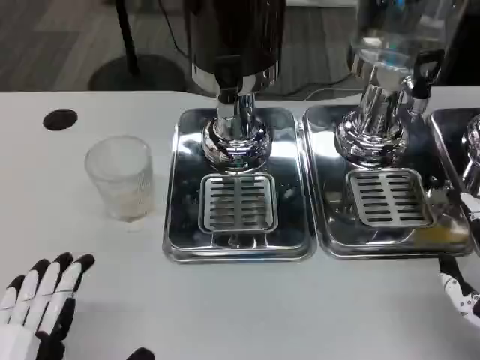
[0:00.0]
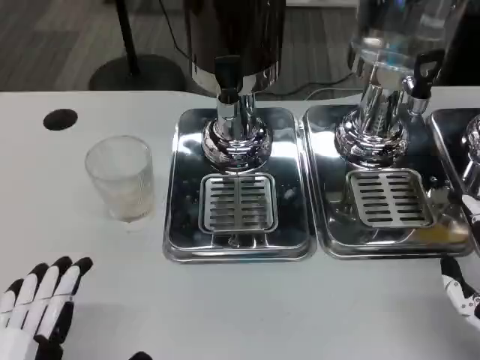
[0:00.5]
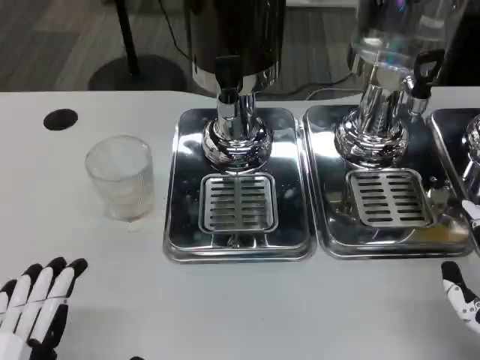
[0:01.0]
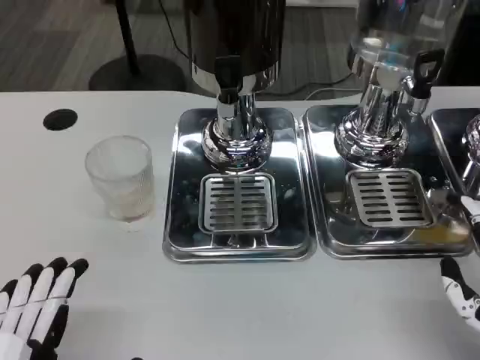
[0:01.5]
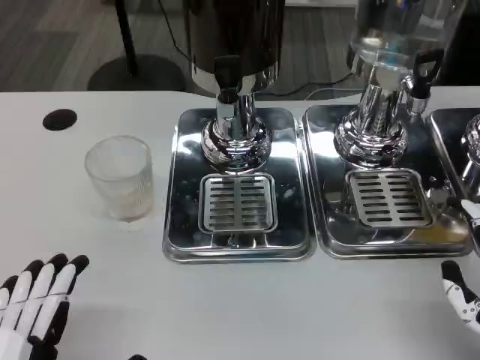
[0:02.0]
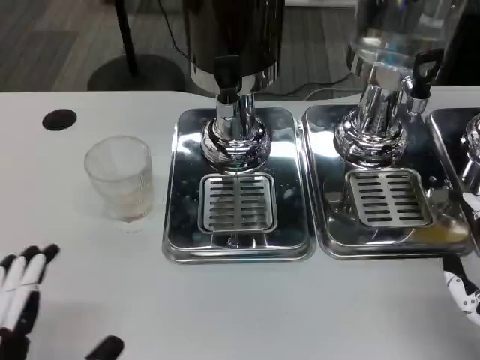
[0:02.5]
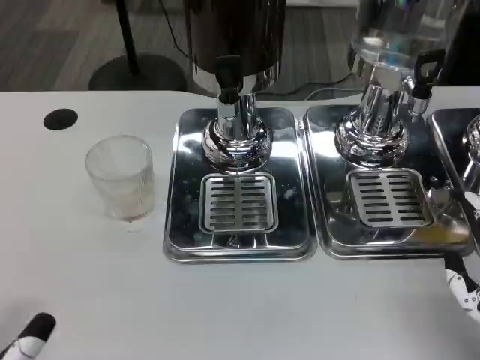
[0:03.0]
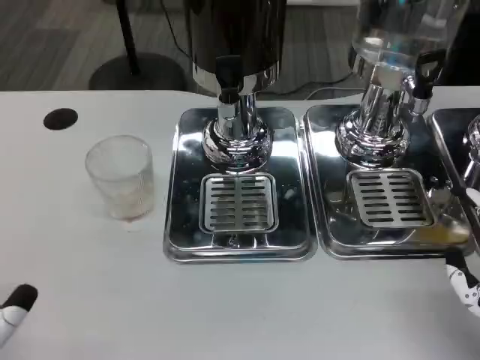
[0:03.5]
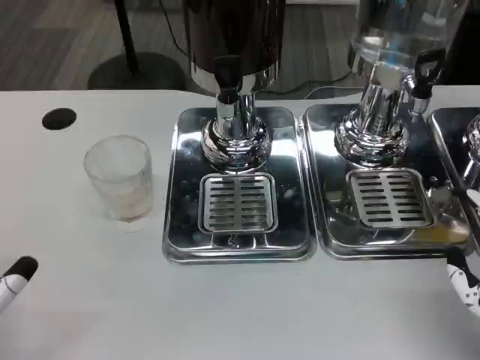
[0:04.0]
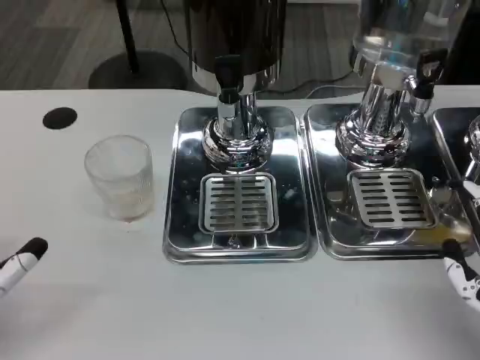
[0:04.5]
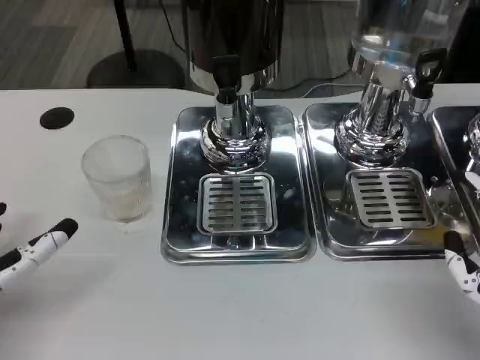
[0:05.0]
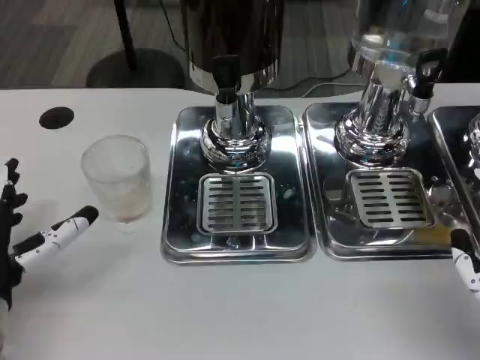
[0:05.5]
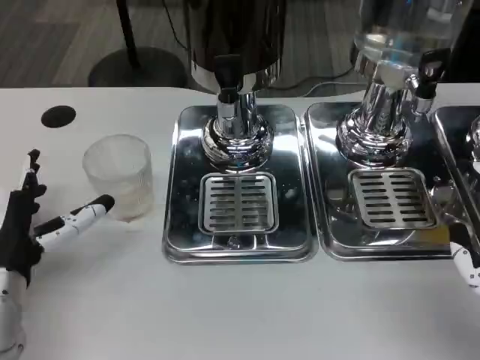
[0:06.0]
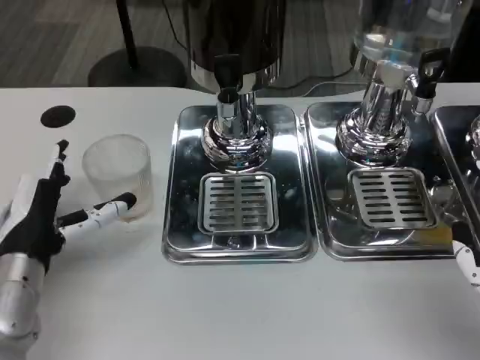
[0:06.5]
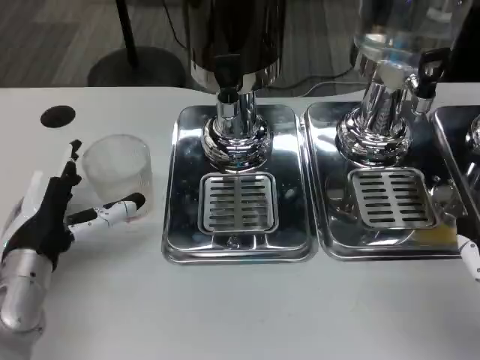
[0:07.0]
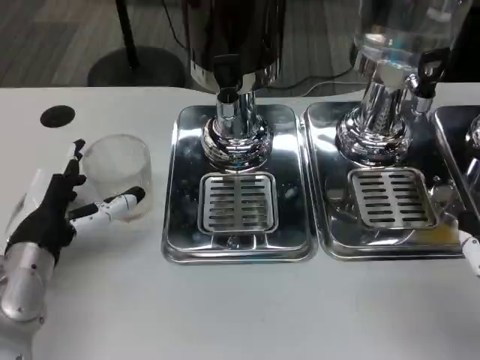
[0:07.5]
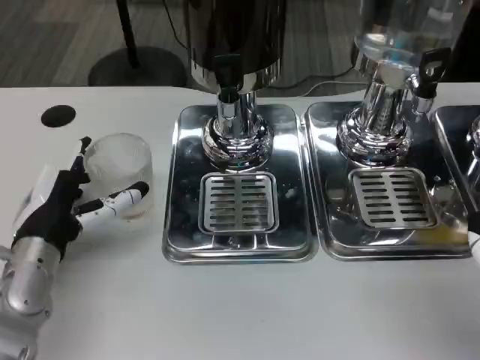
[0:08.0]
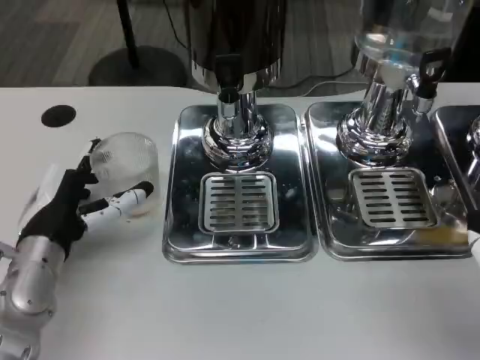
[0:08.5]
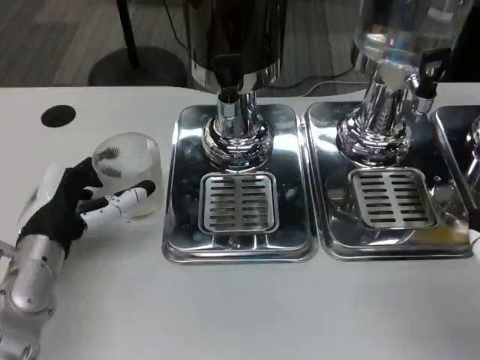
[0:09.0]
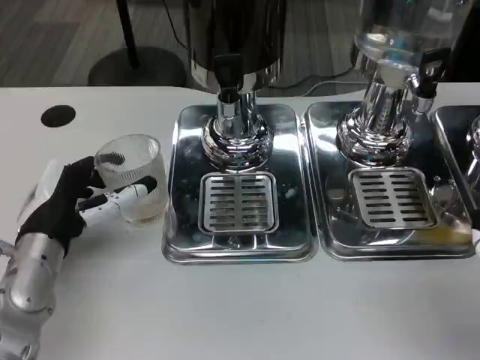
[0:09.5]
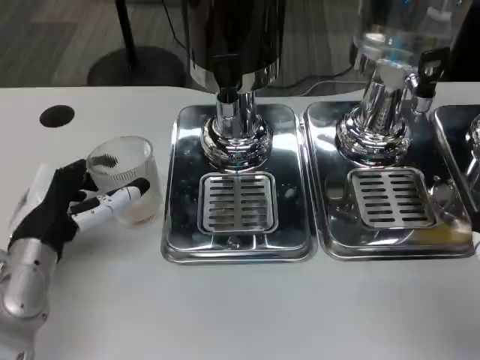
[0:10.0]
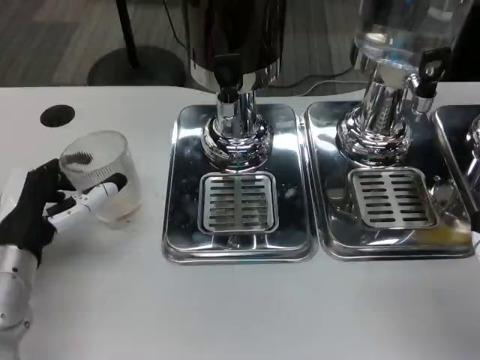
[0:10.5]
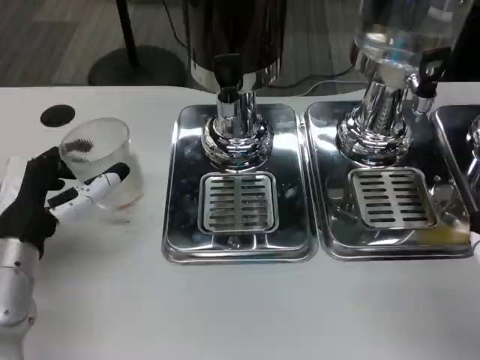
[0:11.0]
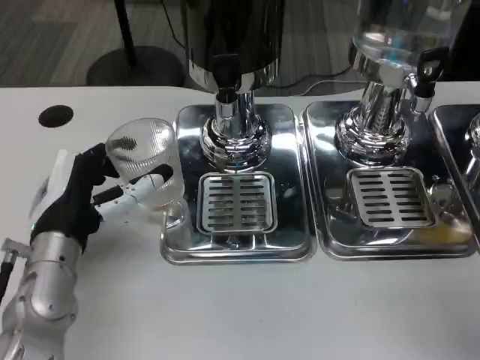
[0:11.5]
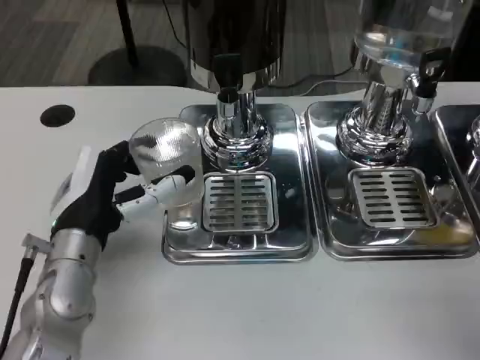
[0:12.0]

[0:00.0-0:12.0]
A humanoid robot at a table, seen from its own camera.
Task of the whole recording: Grasp the cup under the faucet to collect the drink, then remove the cup.
0:00.0 to 0:02.0: Both hands stay put.
0:02.0 to 0:04.0: The left hand moves forward and to the left, about 10 cm.
0:04.0 to 0:06.0: The left hand shifts some 10 cm forward.
0:06.0 to 0:08.0: There are only small adjustments of the hands.
0:08.0 to 0:10.0: Both hands stay about where they are.
0:10.0 to 0:12.0: The left hand travels to the right by approximately 5 cm.

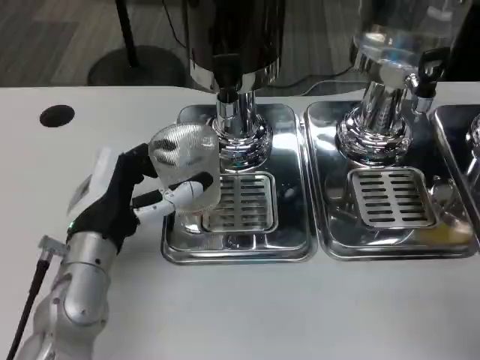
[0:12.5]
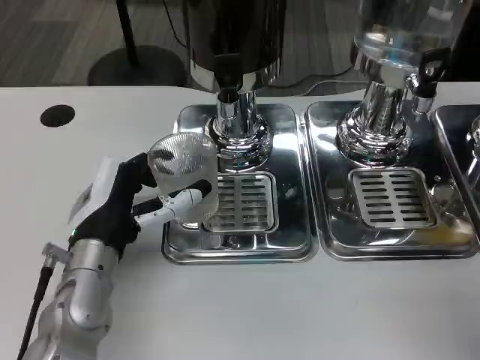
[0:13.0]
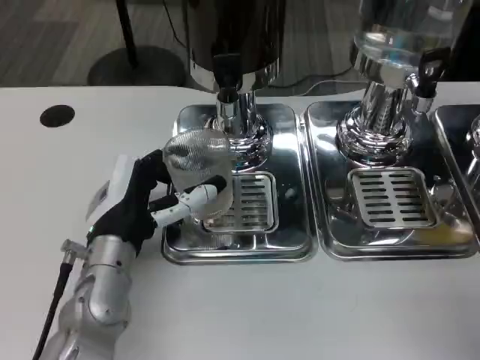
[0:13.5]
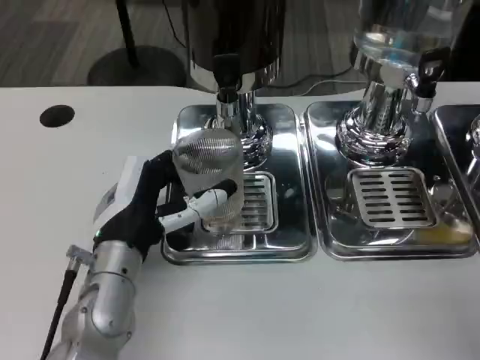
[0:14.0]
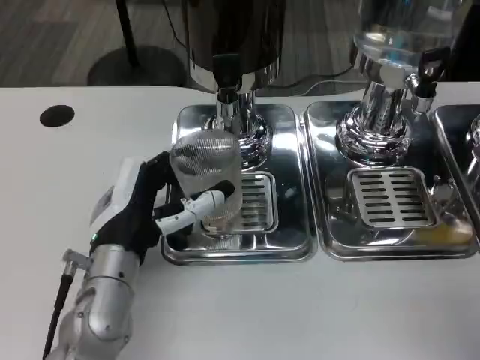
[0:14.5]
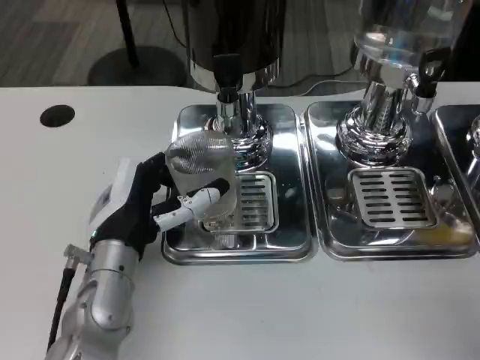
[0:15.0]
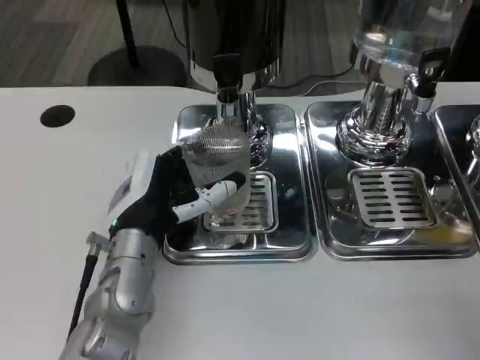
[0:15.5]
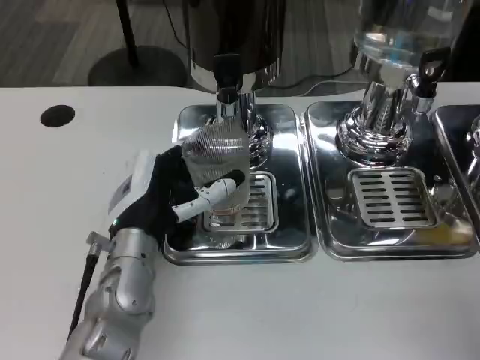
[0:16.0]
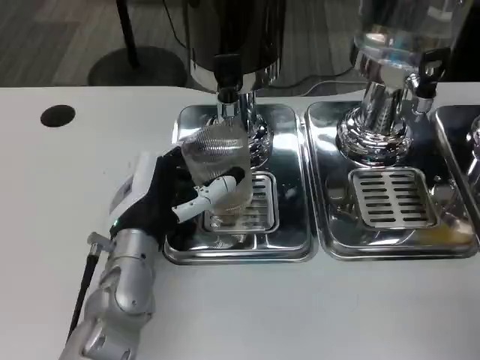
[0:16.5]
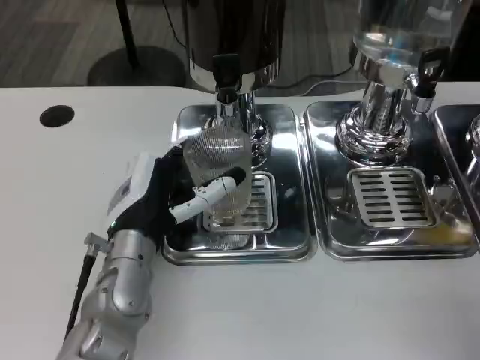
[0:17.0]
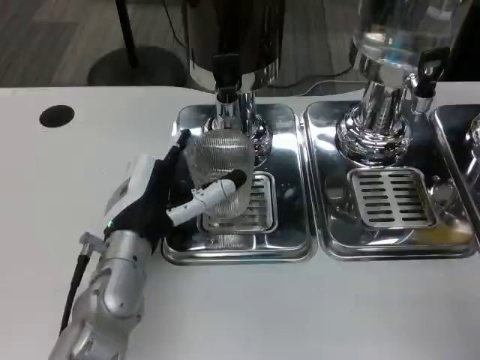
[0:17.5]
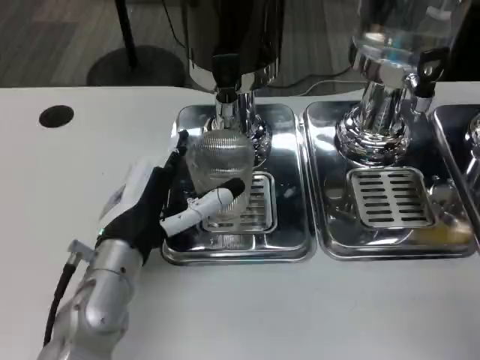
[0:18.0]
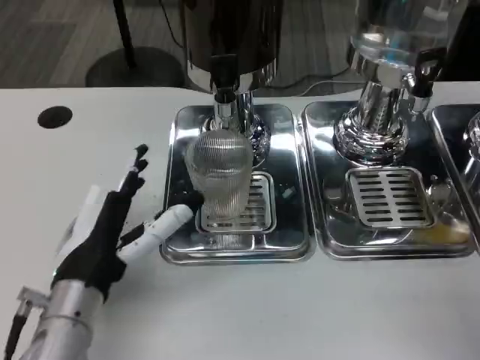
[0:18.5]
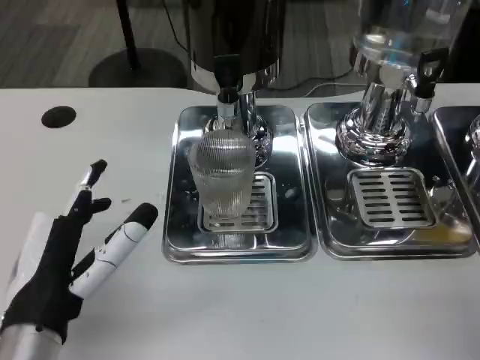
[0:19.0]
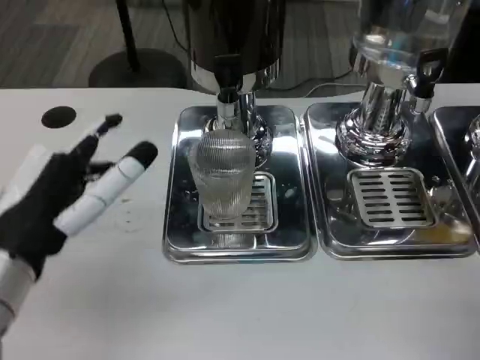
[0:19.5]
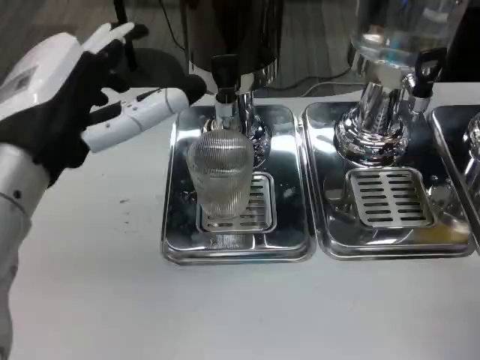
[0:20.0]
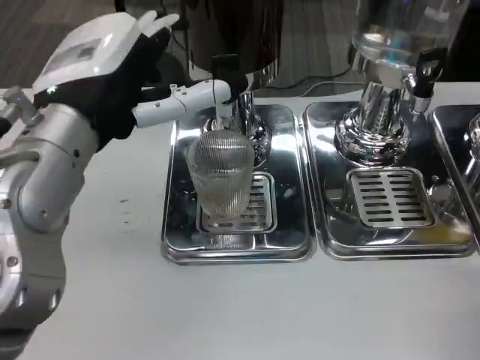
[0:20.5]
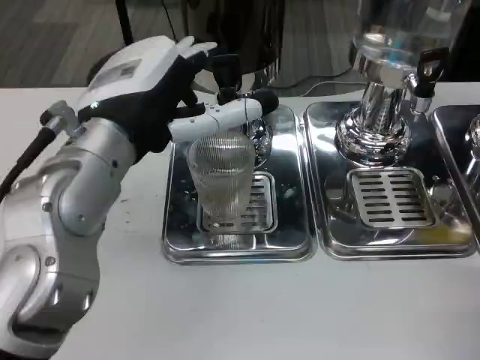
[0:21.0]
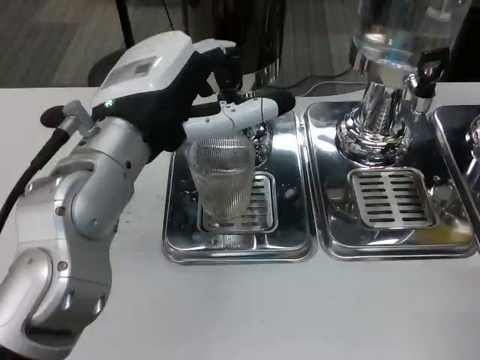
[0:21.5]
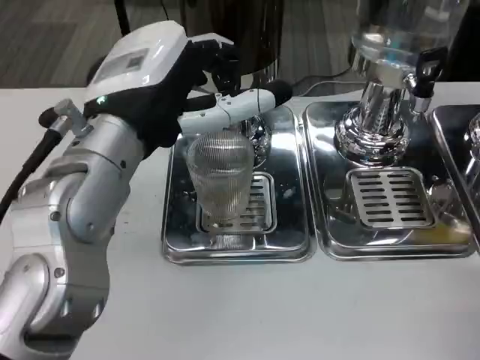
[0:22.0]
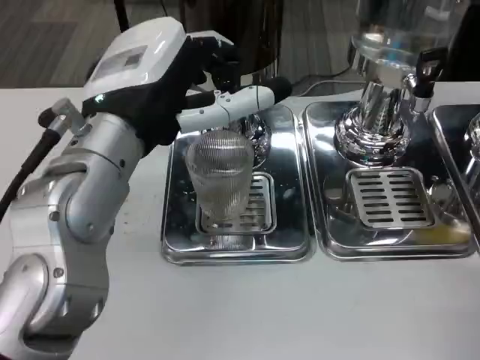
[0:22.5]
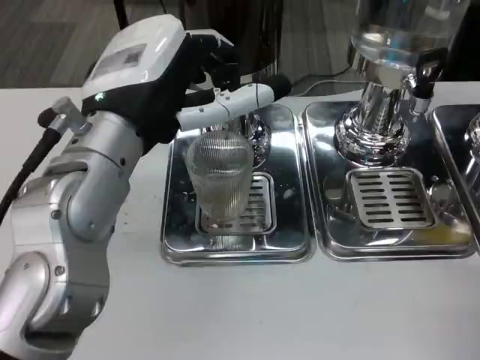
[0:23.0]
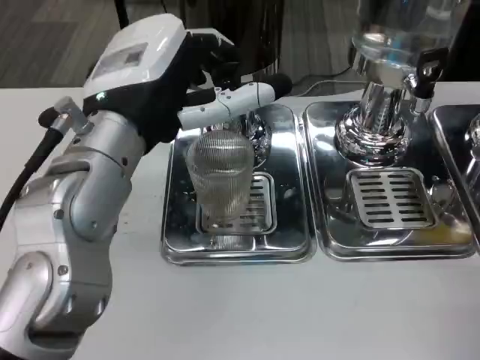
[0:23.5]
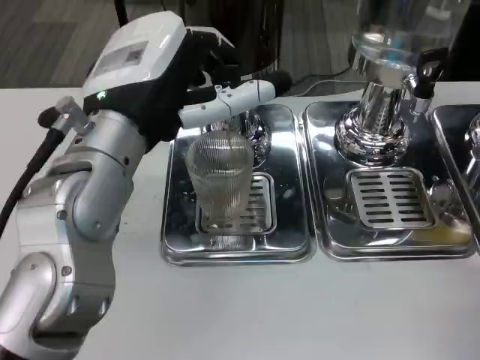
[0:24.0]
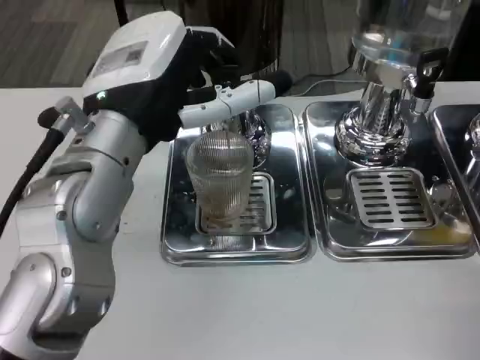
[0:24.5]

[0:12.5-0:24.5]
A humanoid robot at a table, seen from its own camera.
Task of the whole recording: Grasp the cup under the faucet to collect the drink, then remove the cup.
0:12.5 to 0:14.5: The hands make only small movements.
0:16.5 to 0:18.5: The left hand heads backward, covering about 5 cm.
0:18.5 to 0:20.5: The left hand moves upward, about 15 cm.
0:22.5 to 0:24.5: Both hands stay put.

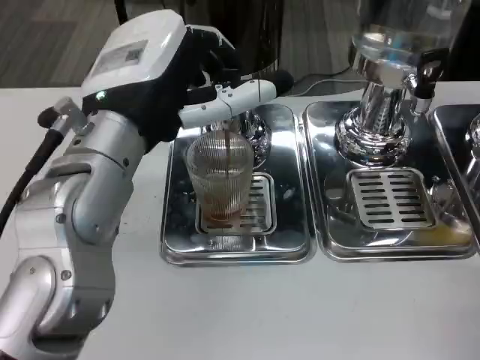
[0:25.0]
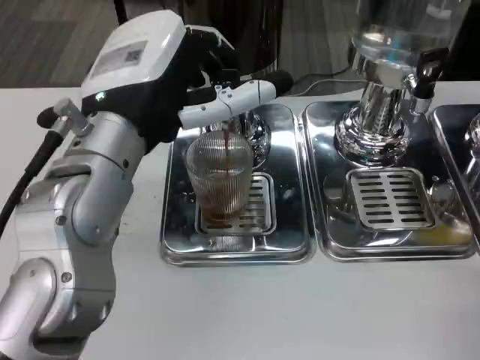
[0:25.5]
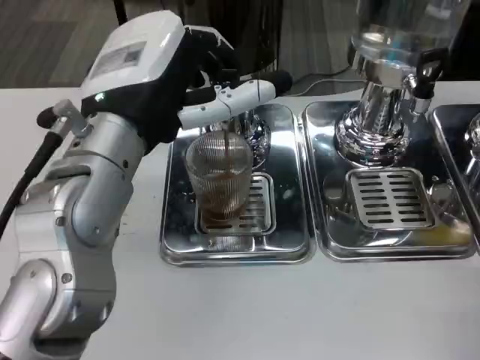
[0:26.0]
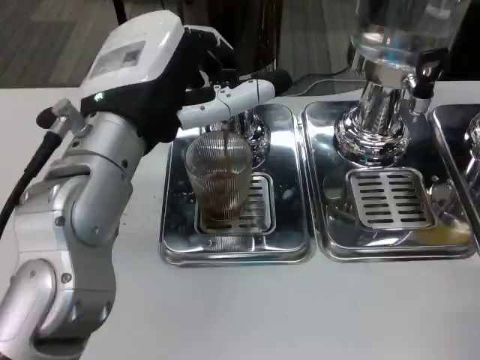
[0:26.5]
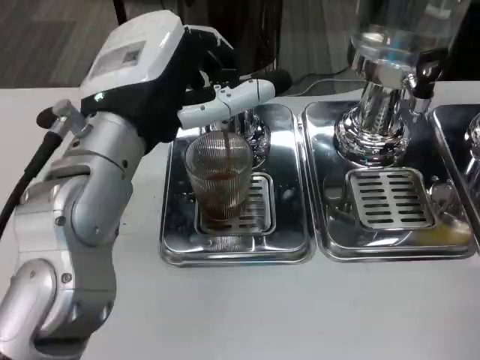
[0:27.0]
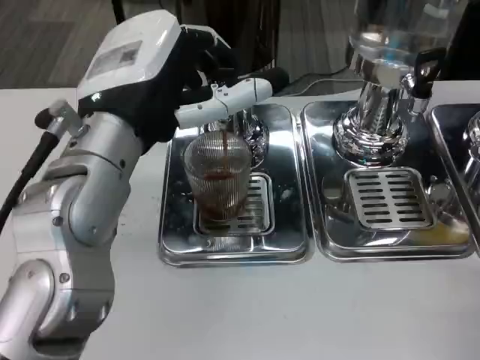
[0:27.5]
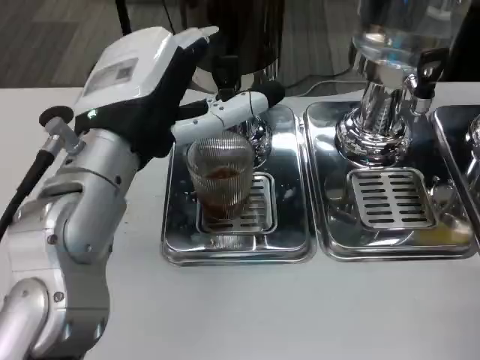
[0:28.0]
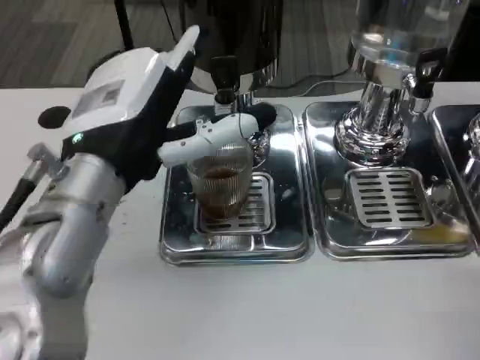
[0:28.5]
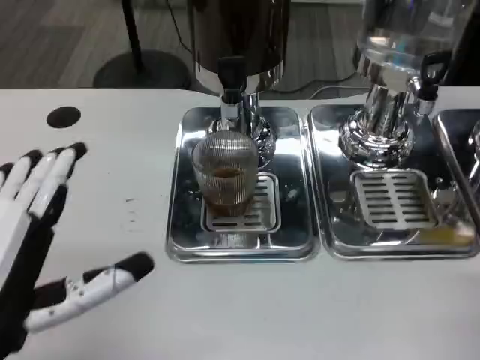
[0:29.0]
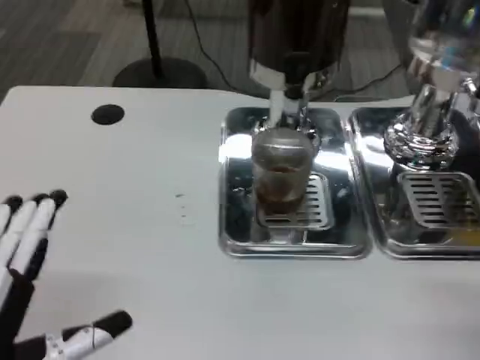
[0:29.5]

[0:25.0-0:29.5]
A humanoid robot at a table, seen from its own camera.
Task of the whole recording: Grasp the cup under the faucet to collect the drink, then remove the cup.
0:25.0 to 0:27.0: Both hands stay put.
0:27.0 to 0:29.5: The left hand travels backward, to the left and downward by about 25 cm.
